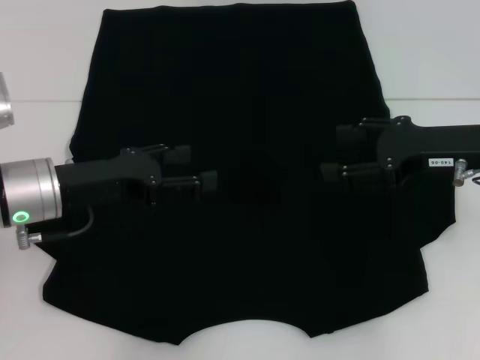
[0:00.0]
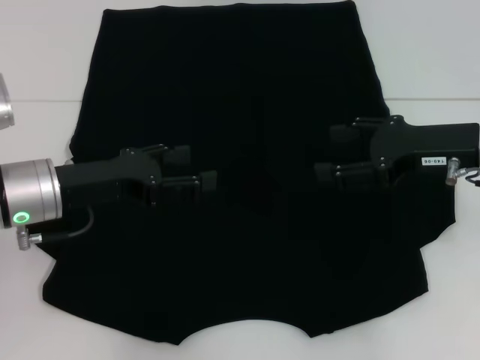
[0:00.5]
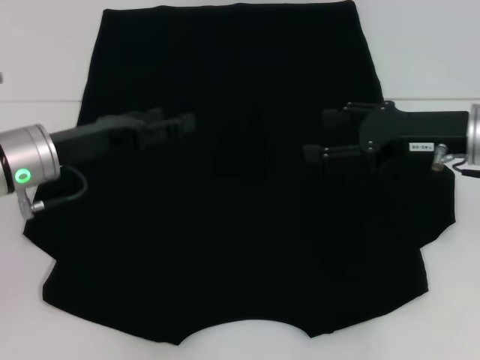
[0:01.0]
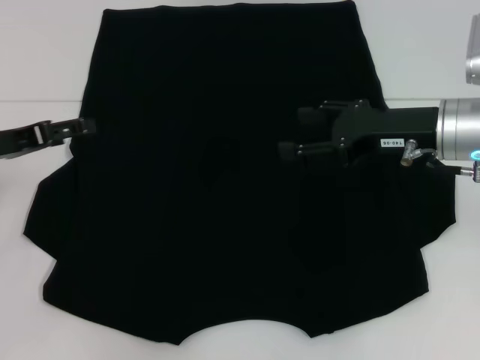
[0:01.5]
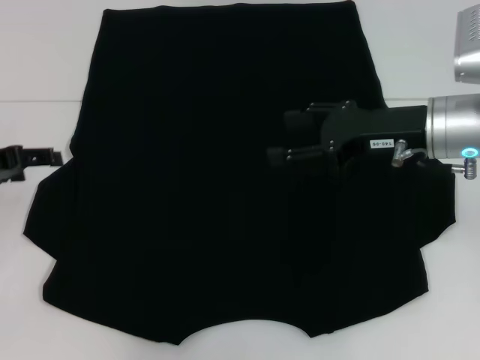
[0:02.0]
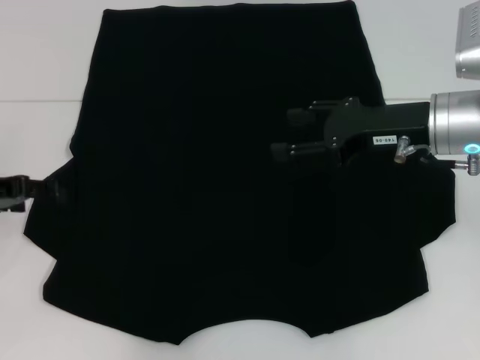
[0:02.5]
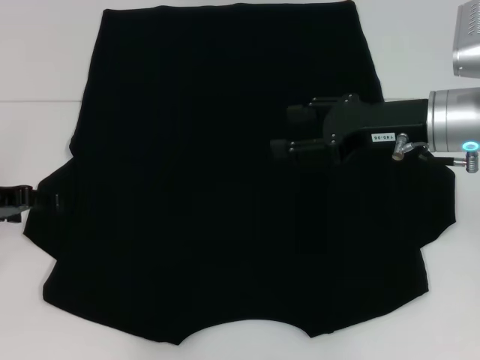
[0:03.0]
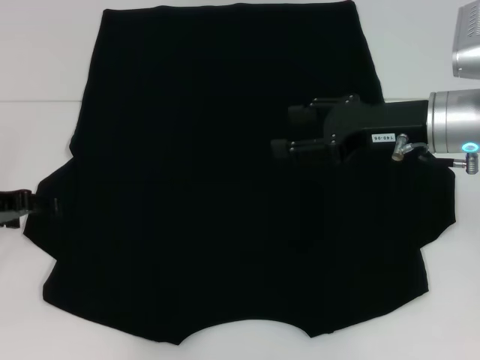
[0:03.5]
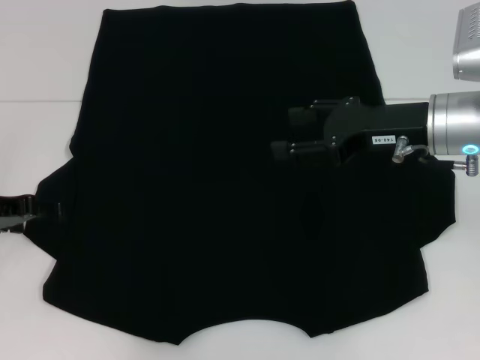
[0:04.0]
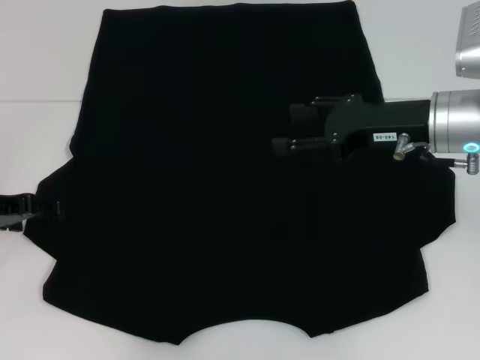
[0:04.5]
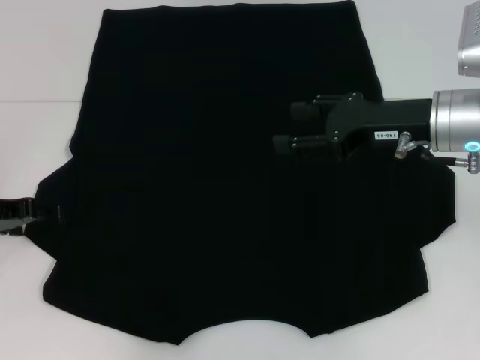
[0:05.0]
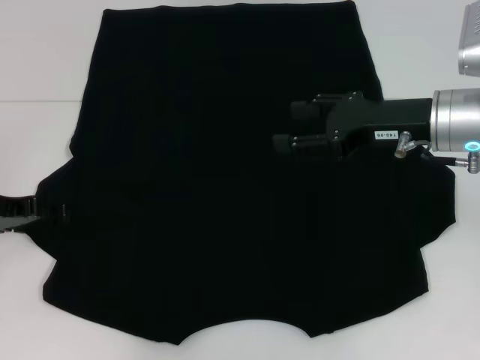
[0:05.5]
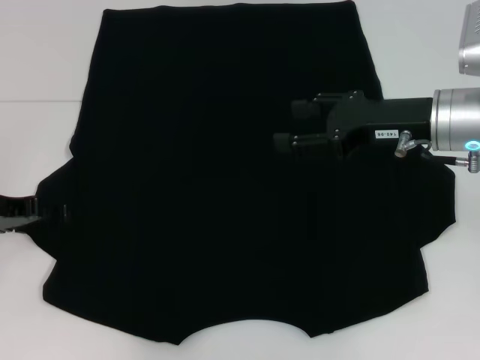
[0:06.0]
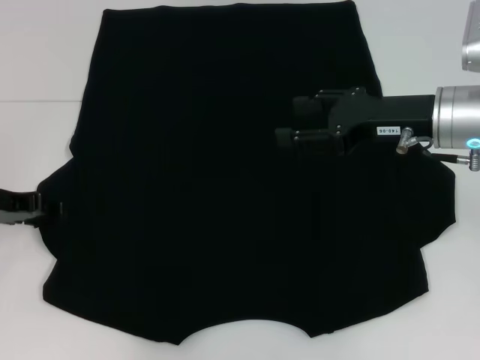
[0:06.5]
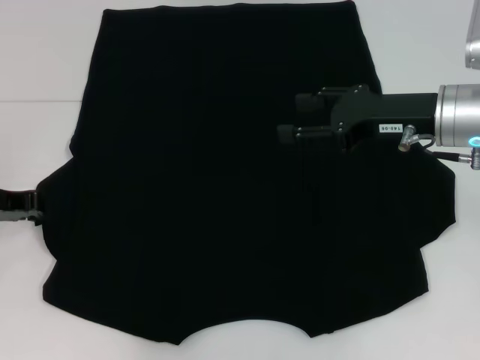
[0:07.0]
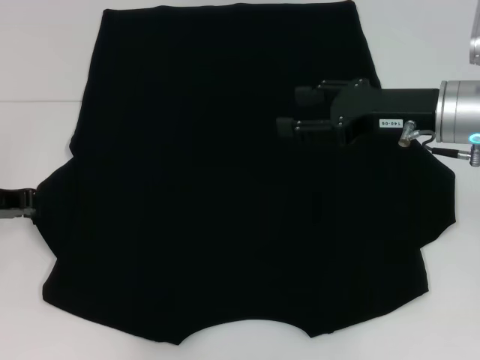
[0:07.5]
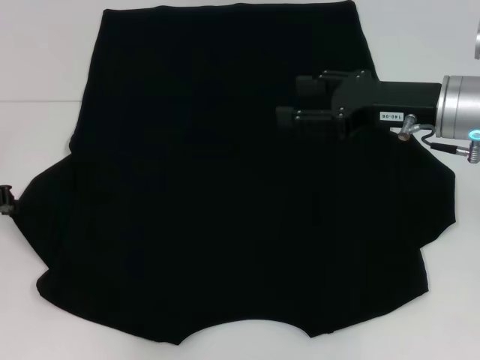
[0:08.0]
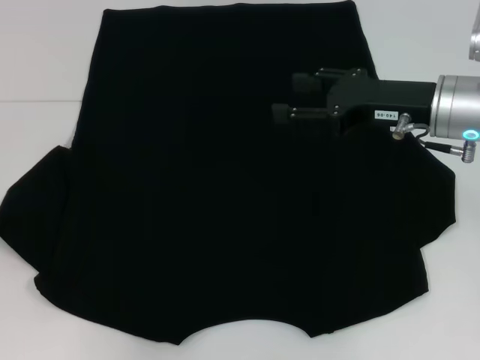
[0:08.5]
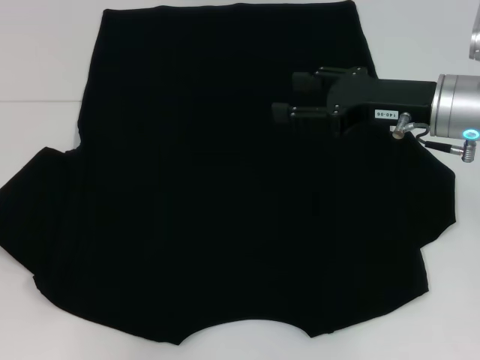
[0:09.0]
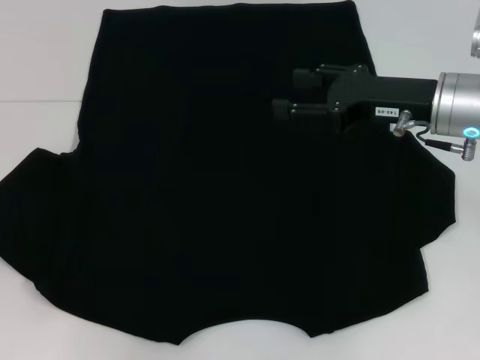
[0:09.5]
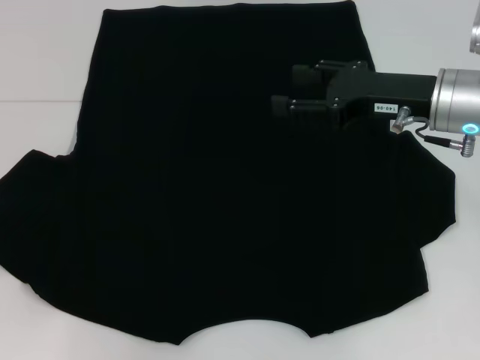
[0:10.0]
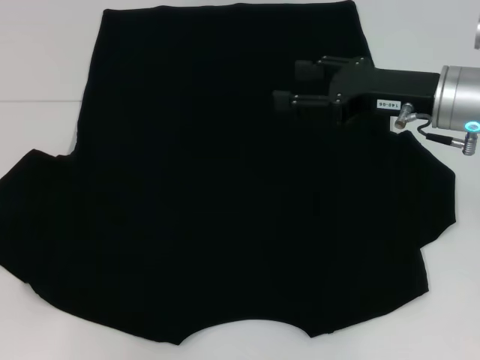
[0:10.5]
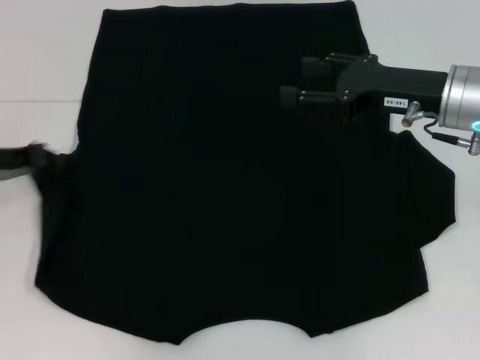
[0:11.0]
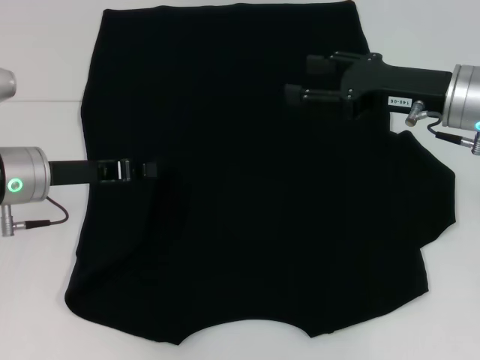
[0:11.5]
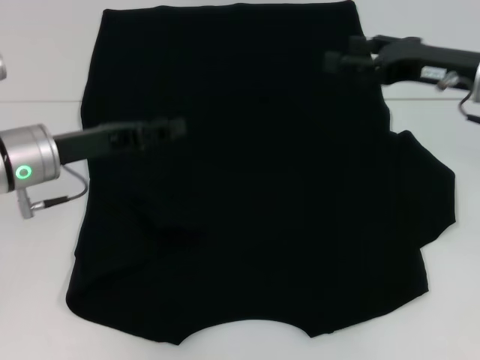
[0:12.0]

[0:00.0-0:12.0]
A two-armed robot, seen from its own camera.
Step, 0:00.0 to 0:11.0: Fold the bottom left sleeve with your left hand.
0:00.0 to 0:02.0: The right gripper moves to the left, some 5 cm. Meanwhile the left gripper is displaced to the left by approximately 10 cm.
0:02.0 to 0:04.0: The grippers make only small movements.
0:04.0 to 0:06.0: Neither gripper changes place.
0:06.0 to 0:08.0: The left gripper closes its fingers.
0:08.0 to 0:10.0: The left gripper ends up about 5 cm from where it was.
0:10.0 to 0:12.0: The left gripper goes roughly 15 cm to the right.

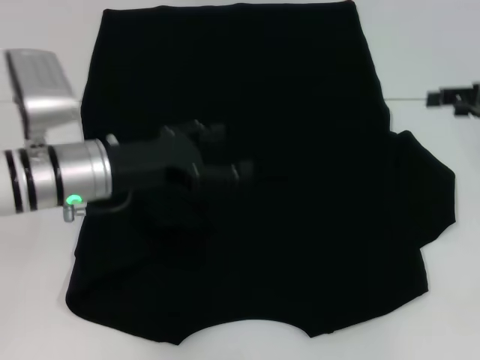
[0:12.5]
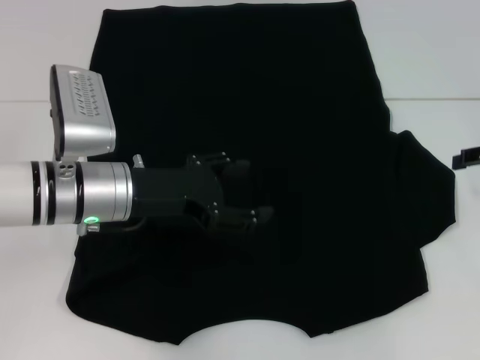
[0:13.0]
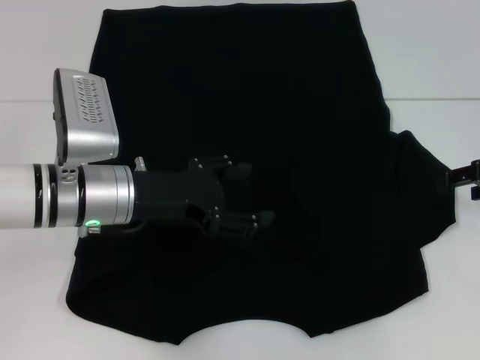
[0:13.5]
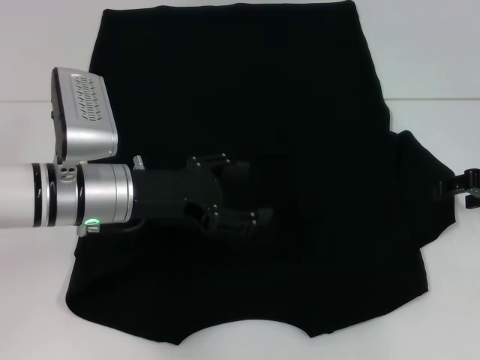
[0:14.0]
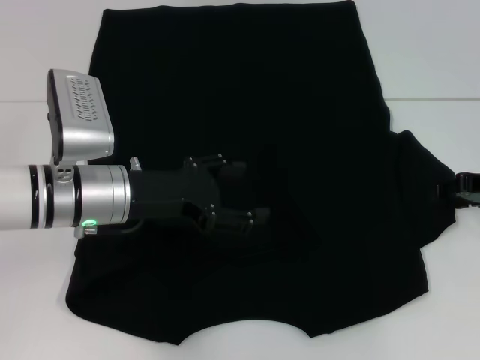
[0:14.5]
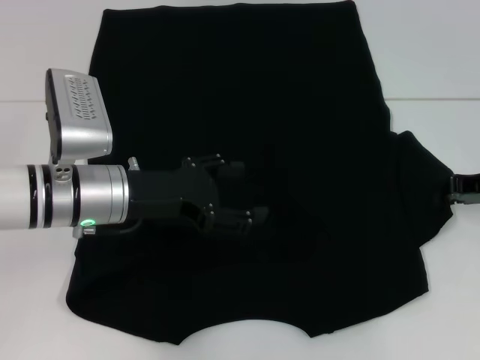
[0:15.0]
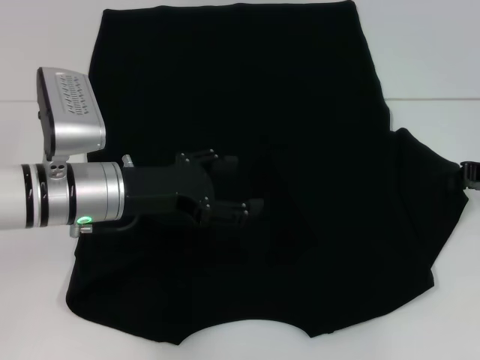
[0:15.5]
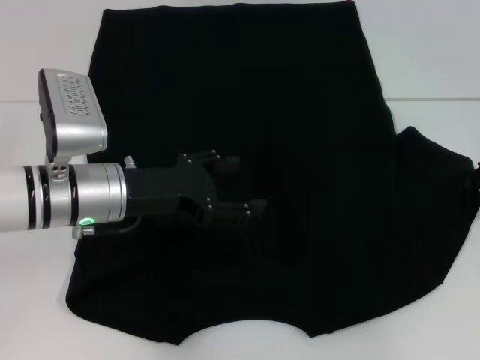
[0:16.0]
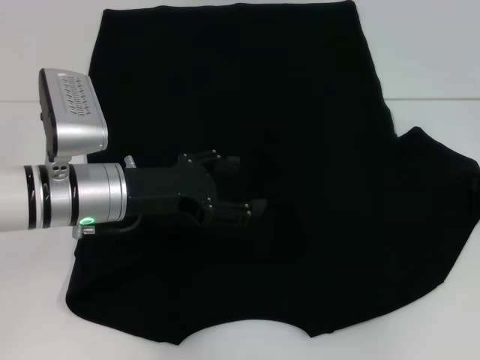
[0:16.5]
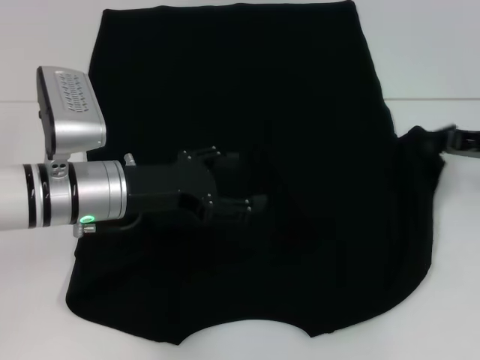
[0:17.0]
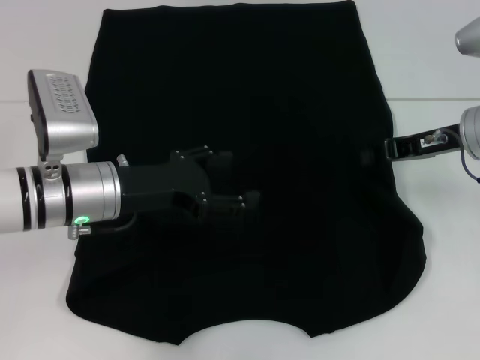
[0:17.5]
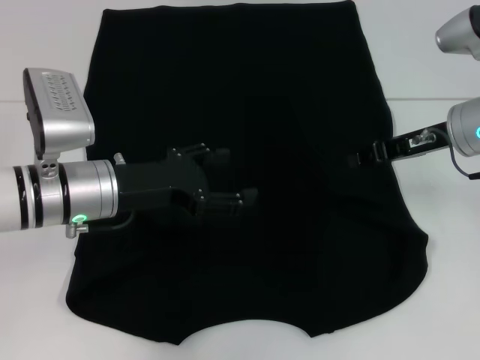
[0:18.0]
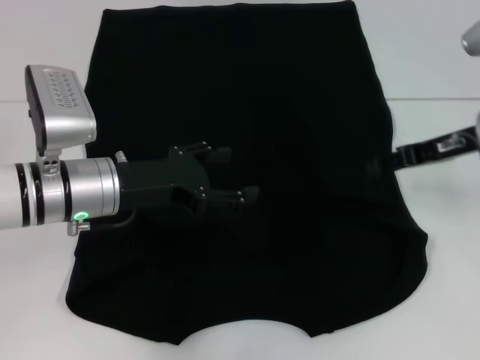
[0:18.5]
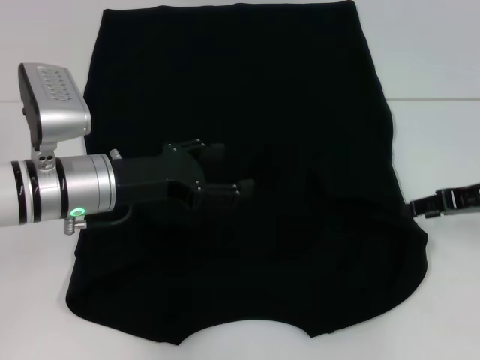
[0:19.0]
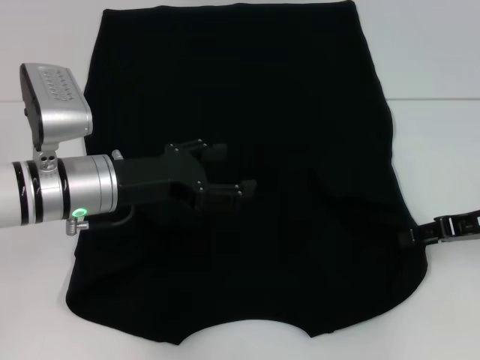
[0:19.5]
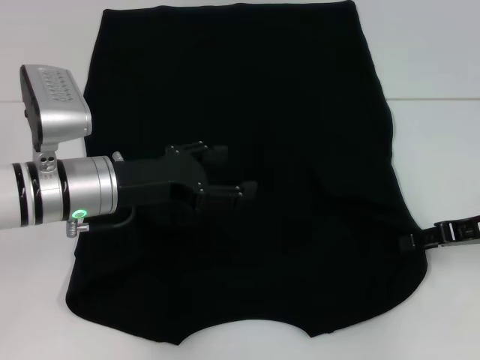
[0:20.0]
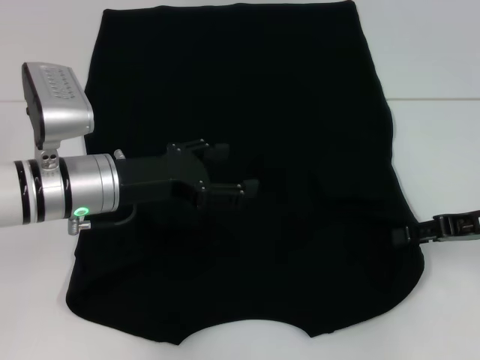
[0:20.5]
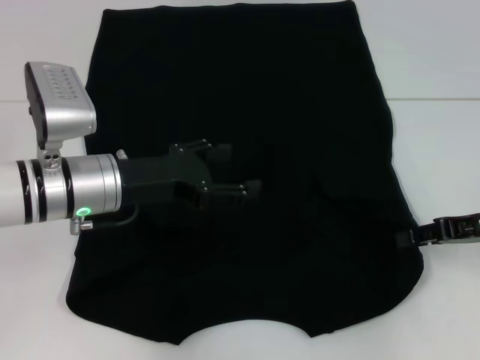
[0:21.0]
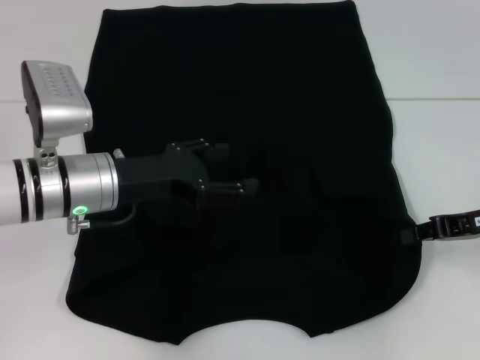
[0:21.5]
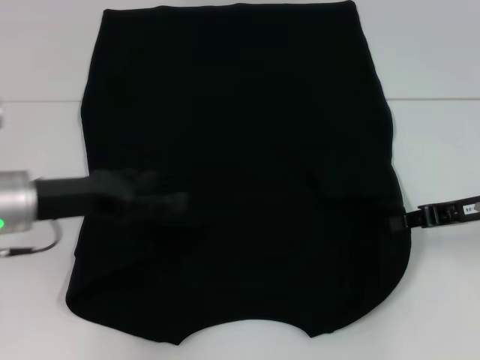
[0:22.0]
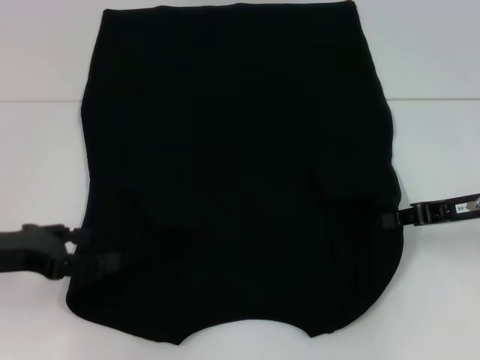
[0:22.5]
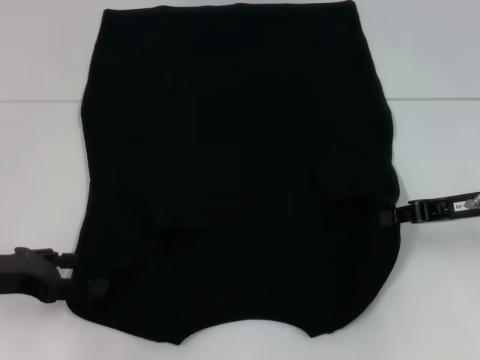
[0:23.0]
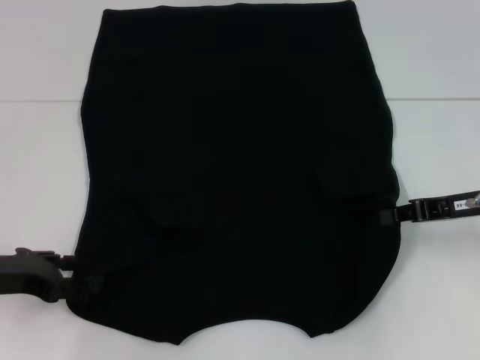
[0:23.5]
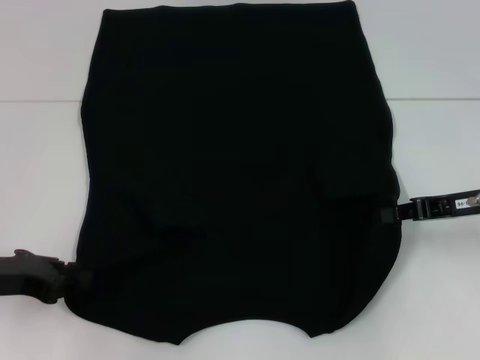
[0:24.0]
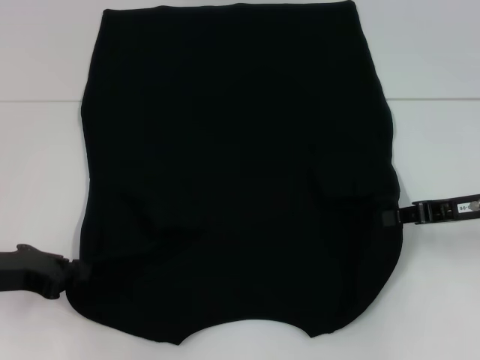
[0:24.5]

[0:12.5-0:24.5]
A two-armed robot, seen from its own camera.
Step, 0:12.5 to 0:18.0: Fold the bottom right sleeve with your right hand.
Step, 0:18.5 to 0:22.0: Grab the bottom right corner with your right hand.
0:12.5 to 0:14.5: The right gripper goes roughly 5 cm downward.
0:14.5 to 0:16.5: The right gripper closes.
0:16.5 to 0:18.5: The right gripper travels to the left and upward by approximately 10 cm, and opens.
0:18.5 to 0:20.5: The right gripper travels backward by some 5 cm.
0:20.5 to 0:22.5: The right gripper closes its fingers, while the left gripper goes approximately 15 cm to the left and backward.
0:22.5 to 0:24.5: The left gripper closes its fingers.

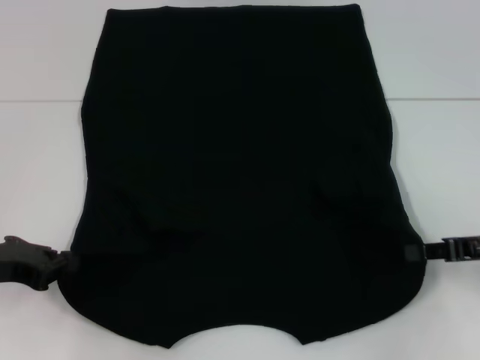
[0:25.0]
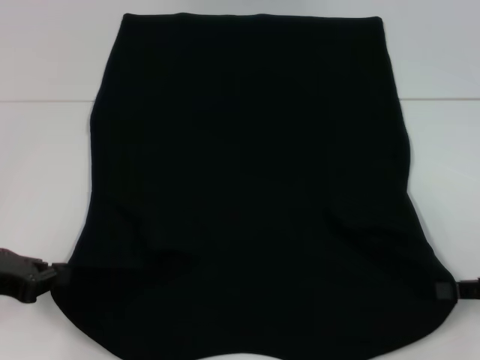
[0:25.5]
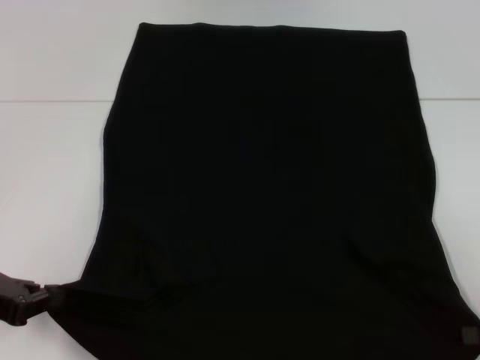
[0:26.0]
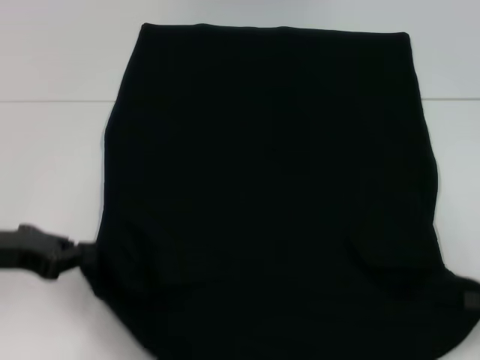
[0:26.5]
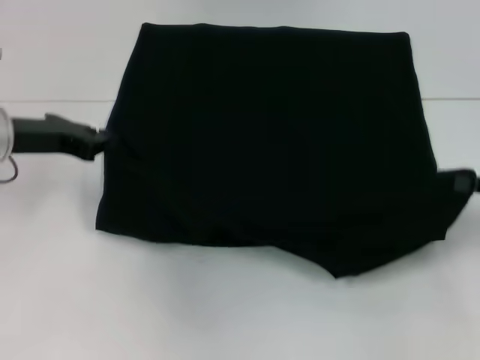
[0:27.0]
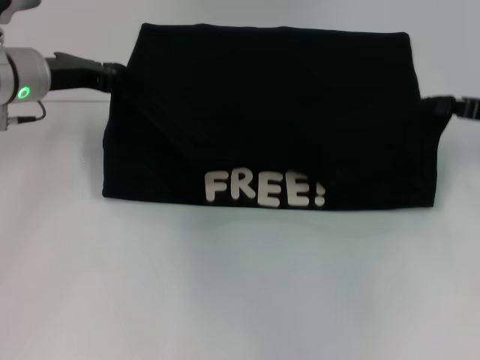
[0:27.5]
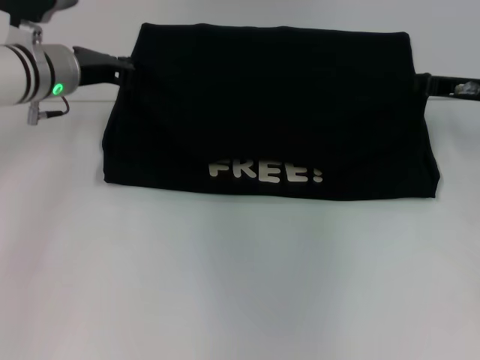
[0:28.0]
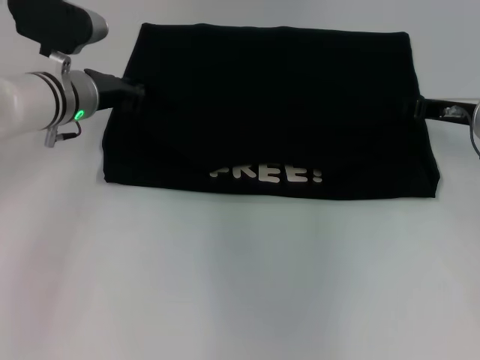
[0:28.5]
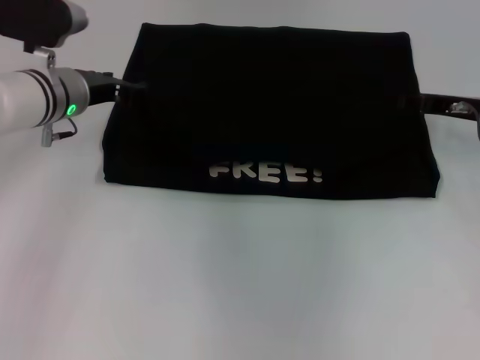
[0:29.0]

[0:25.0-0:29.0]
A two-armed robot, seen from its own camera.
Step, 0:25.0 to 0:29.0: Fold the clothes with your left hand.
Step, 0:25.0 to 0:29.0: Fold the clothes with your right hand.
0:25.0 to 0:27.0: The right gripper goes backward and returns, roughly 10 cm each way. Meanwhile the left gripper travels forward and upward by approximately 10 cm.
0:27.0 to 0:29.0: The right gripper heads forward and to the left, covering roughly 15 cm, and opens its fingers. Meanwhile the left gripper heads forward and to the right, covering roughly 10 cm, and opens up.
